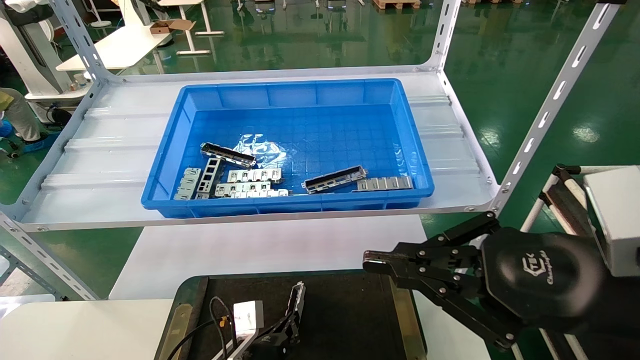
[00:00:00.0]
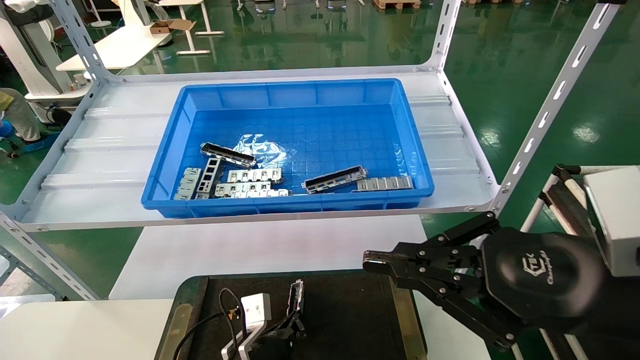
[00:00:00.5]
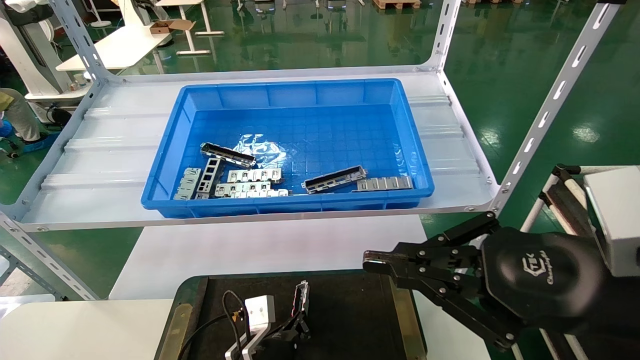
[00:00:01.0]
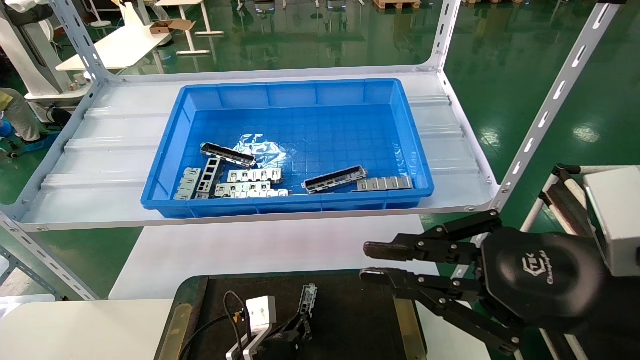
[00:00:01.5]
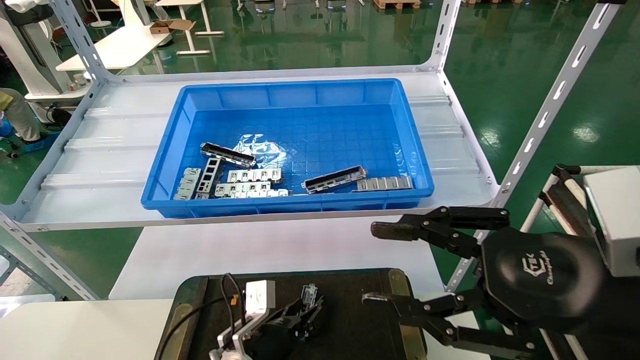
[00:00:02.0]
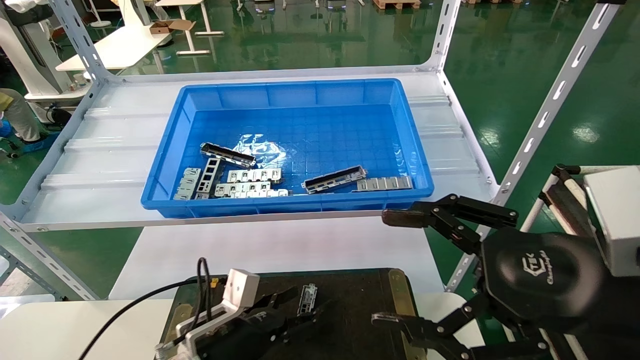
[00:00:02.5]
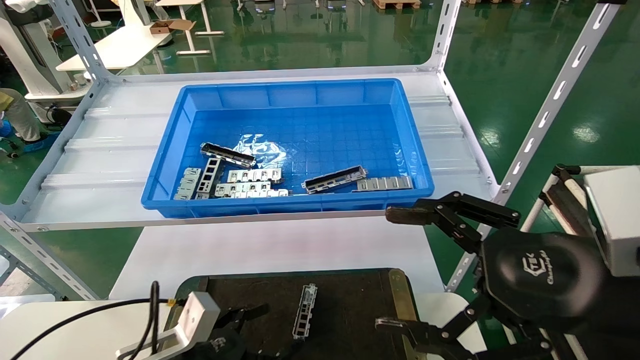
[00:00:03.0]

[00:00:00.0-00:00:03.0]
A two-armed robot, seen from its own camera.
Task of the whole recording: Grasp the part with one hand and place it on the black container.
00:00:00.0 to 00:00:01.5: There are only small adjustments of the grippers.
00:00:01.5 to 00:00:03.0: The right gripper opens its fingers. The left gripper is displaced to the left, upward and backward by roughly 15 cm, and opens its fingers.

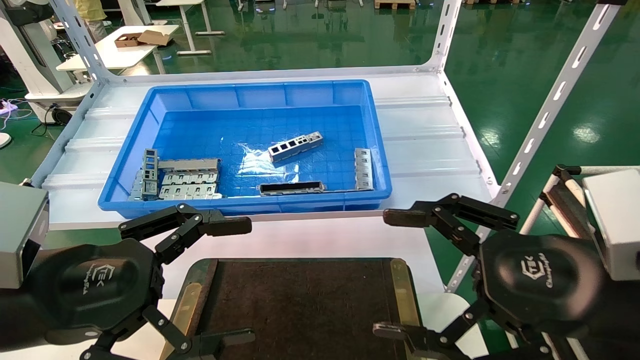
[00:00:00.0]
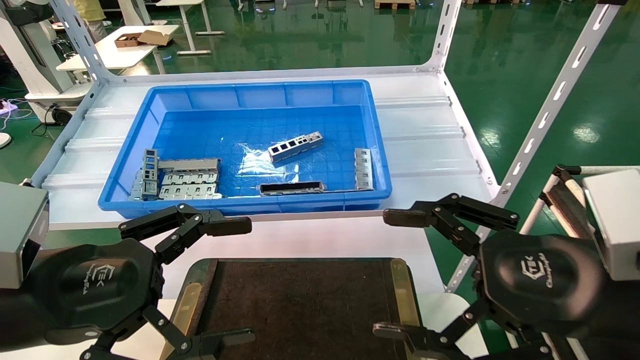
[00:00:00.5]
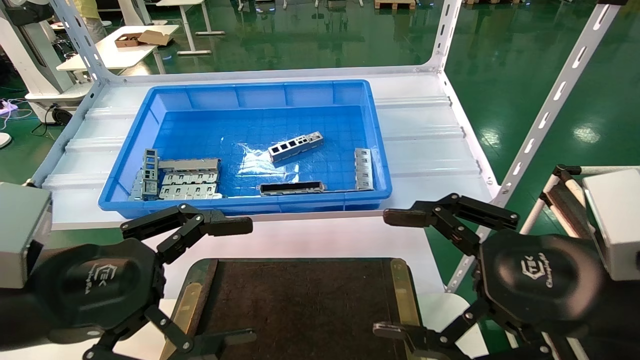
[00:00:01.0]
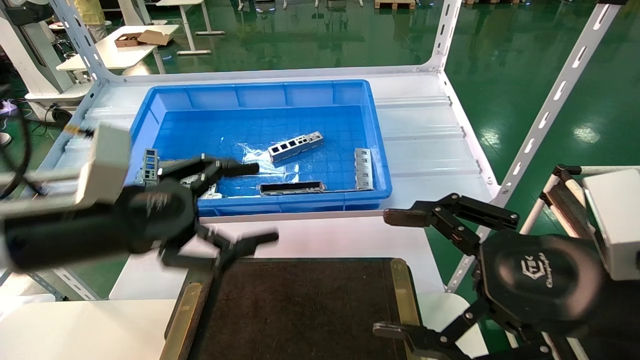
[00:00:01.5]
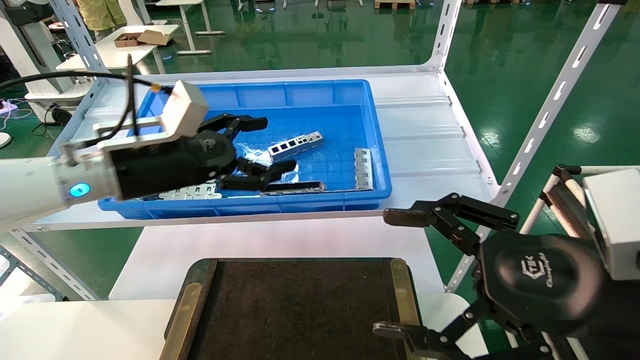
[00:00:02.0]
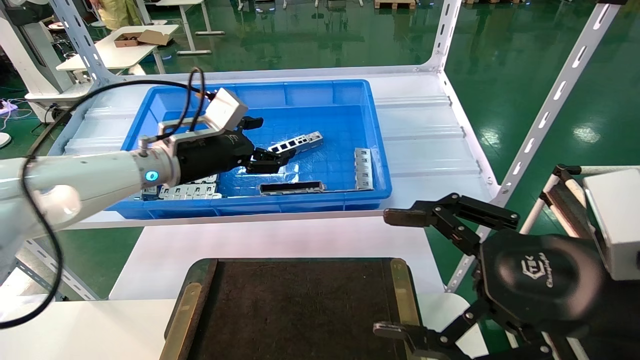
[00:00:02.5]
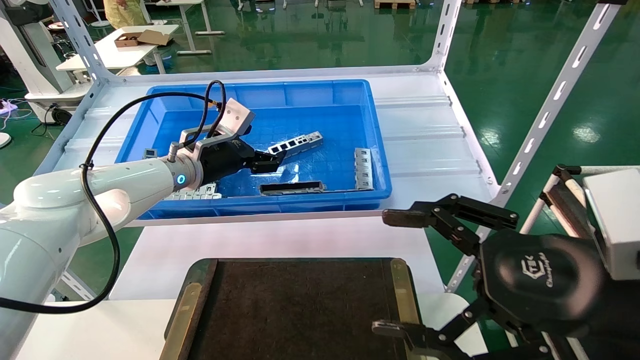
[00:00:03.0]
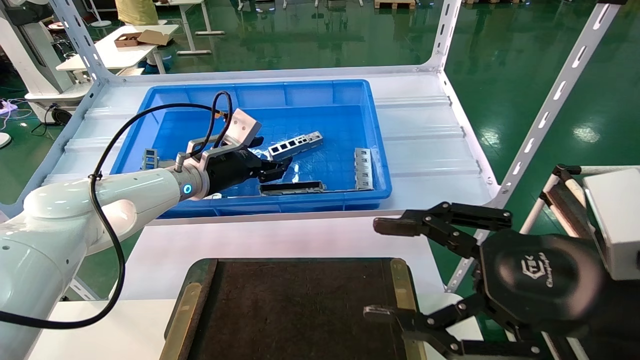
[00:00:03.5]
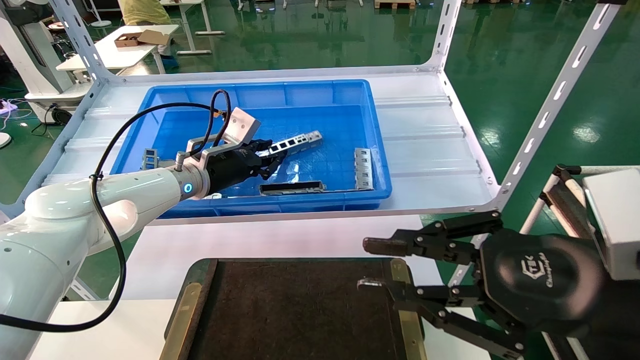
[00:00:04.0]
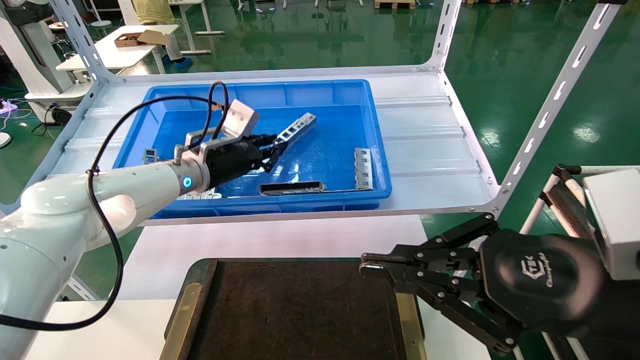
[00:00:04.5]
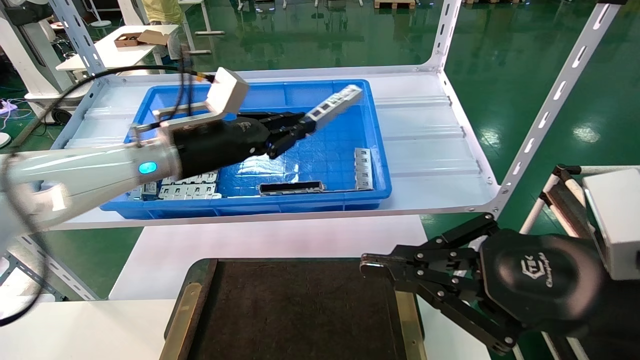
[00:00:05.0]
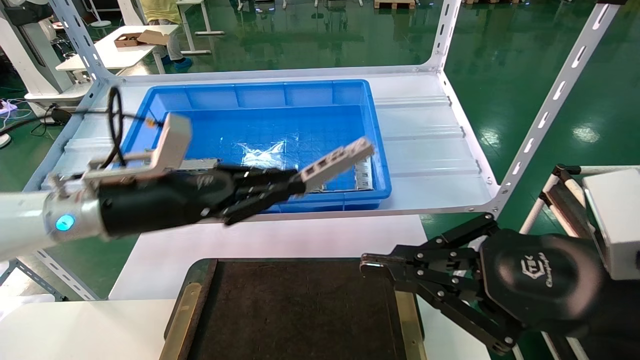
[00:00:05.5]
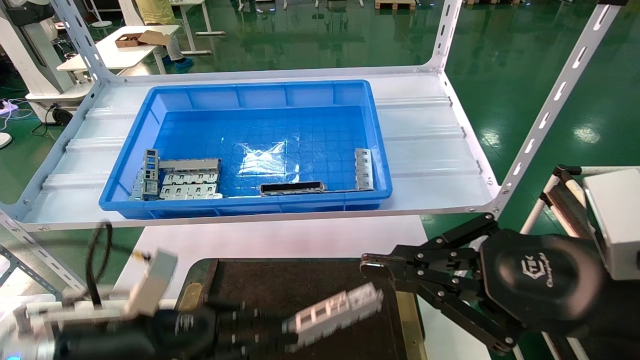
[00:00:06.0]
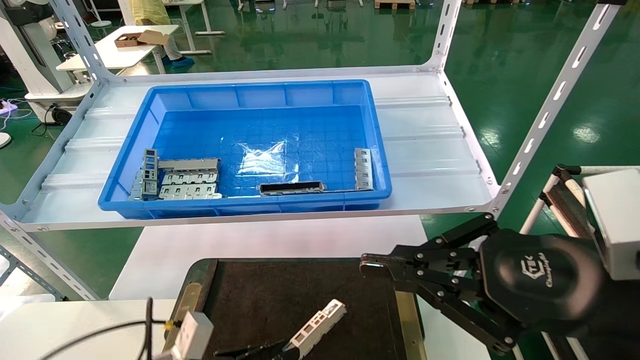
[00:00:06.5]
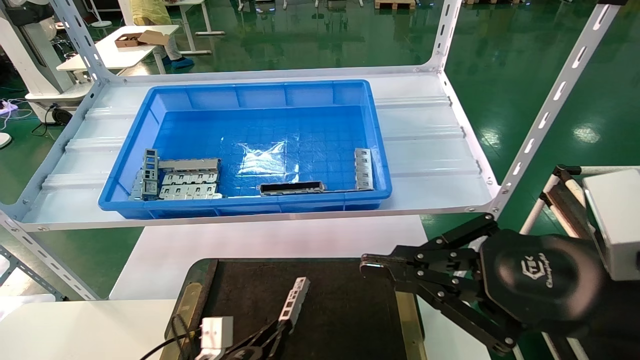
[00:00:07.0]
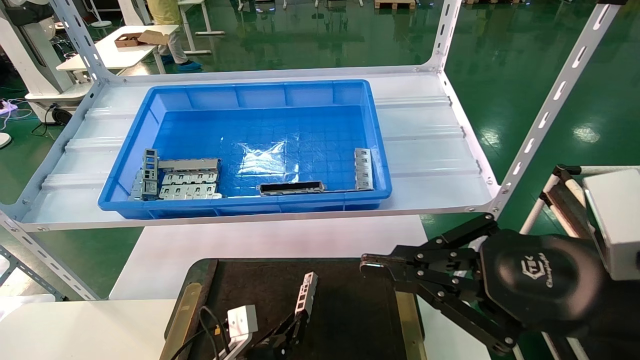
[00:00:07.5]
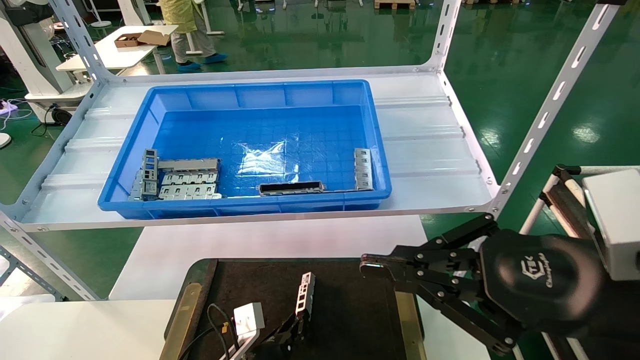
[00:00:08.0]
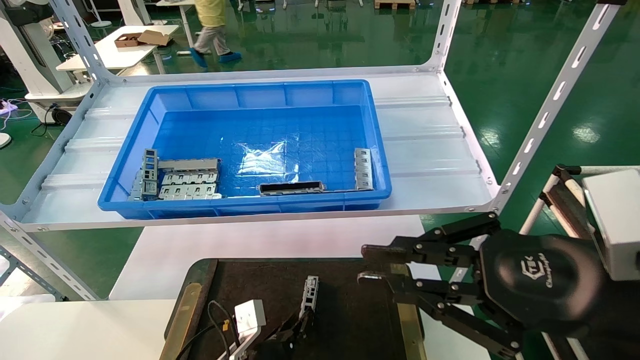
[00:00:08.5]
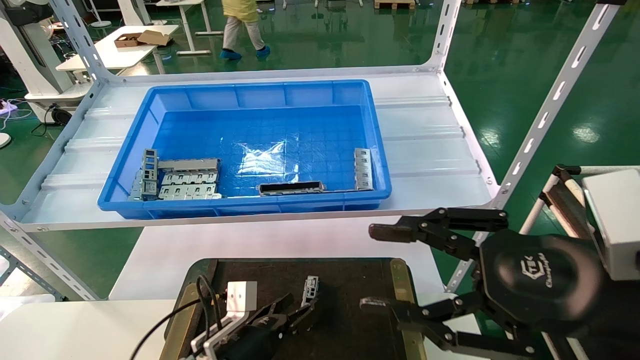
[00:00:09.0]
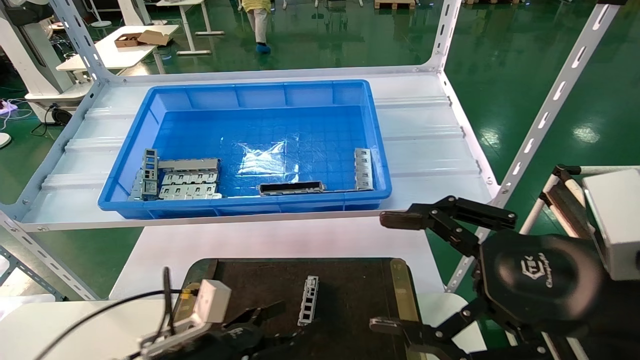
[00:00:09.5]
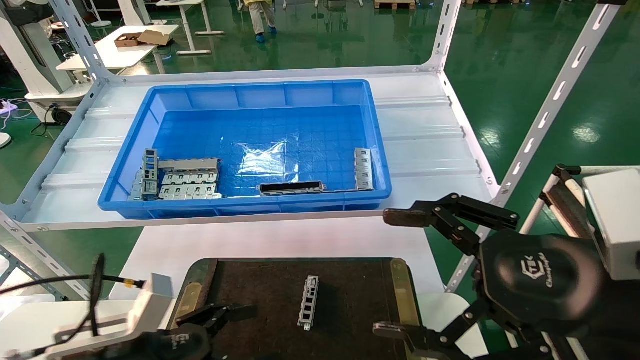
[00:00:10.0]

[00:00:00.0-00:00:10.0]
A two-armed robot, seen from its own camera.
Task of the whole recording: Grasp the part with one hand and place it on the black container.
Step, 00:00:01.5 to 00:00:04.0: Pick up the front USB bracket from the feeding area.
Step, 00:00:04.5 to 00:00:08.0: Place the front USB bracket into the box.
00:00:00.0 to 00:00:02.0: The left gripper shifts approximately 20 cm forward.
00:00:02.0 to 00:00:04.0: The left gripper moves forward and downward, some 15 cm, and closes up. Meanwhile the right gripper closes up.
00:00:04.0 to 00:00:06.0: The left gripper moves backward and downward, roughly 25 cm, while the right gripper closes its fingers.
00:00:06.0 to 00:00:08.0: The left gripper travels downward and to the right by approximately 25 cm.
00:00:08.0 to 00:00:10.0: The right gripper opens. Meanwhile the left gripper goes approximately 25 cm upward, to the left and backward, and opens its fingers.
